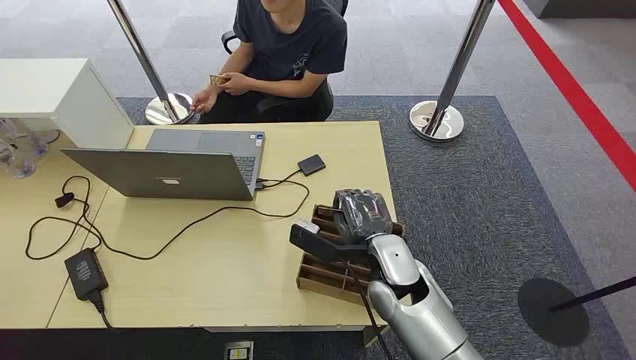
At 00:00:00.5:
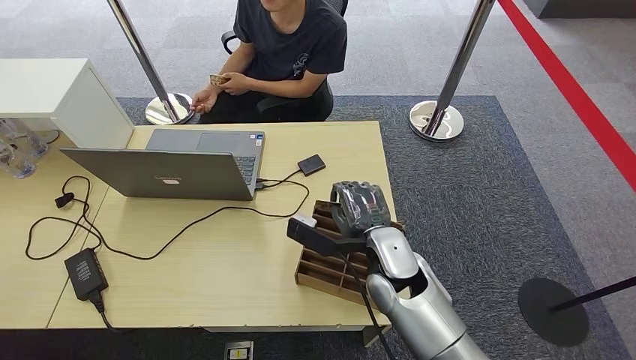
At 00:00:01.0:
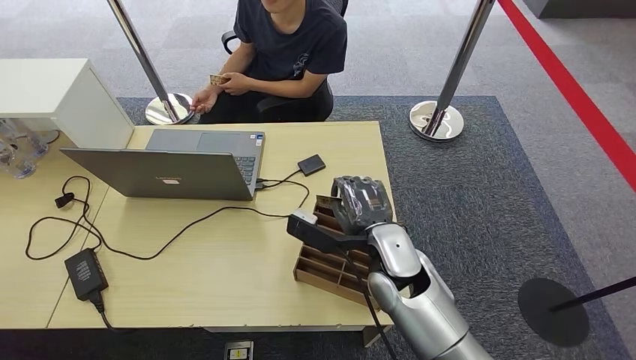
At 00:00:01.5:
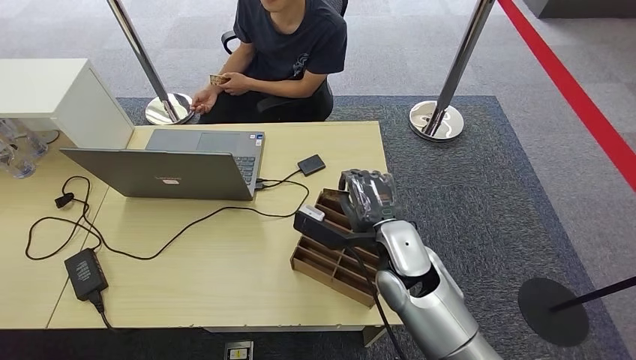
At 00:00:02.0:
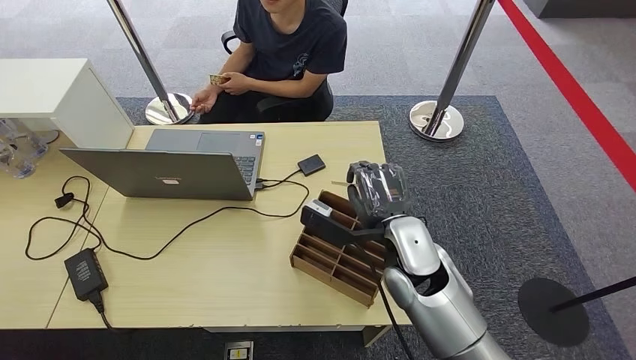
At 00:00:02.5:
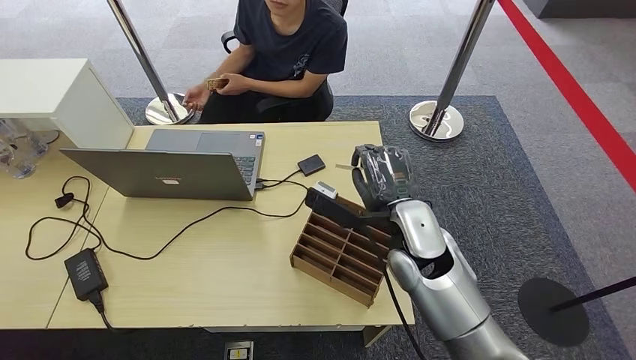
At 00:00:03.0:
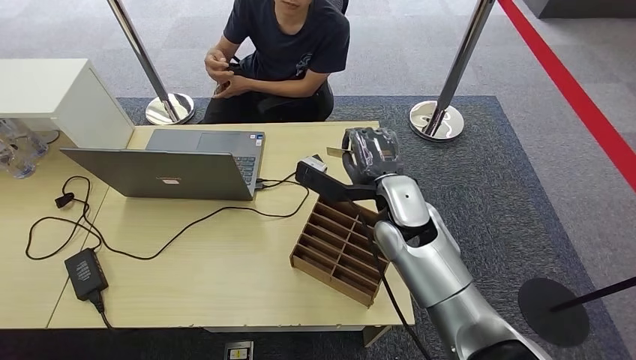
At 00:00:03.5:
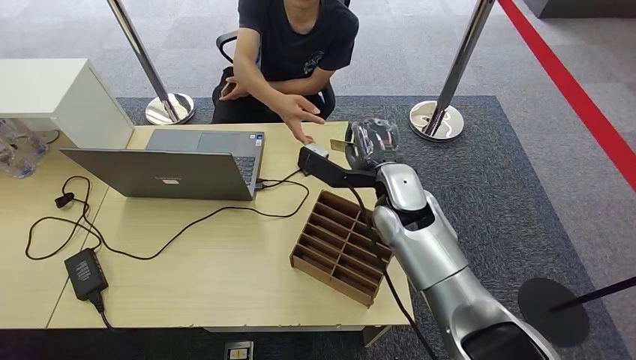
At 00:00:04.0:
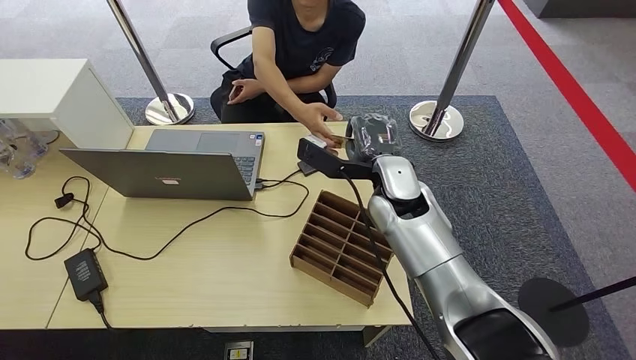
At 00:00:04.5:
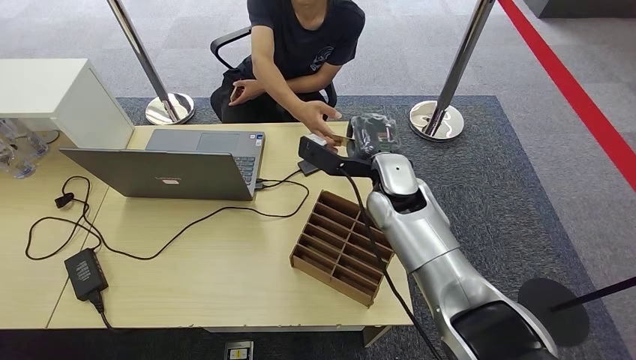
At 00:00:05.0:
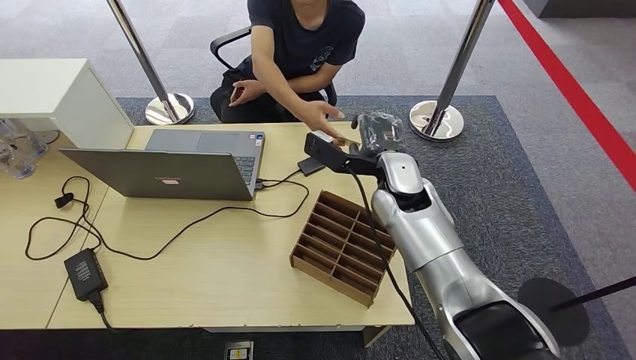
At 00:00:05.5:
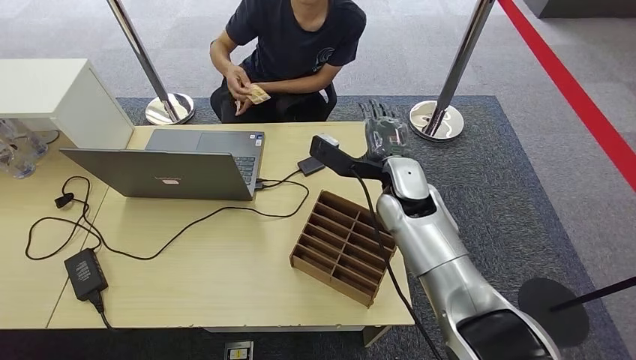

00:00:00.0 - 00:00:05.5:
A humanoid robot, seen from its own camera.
Step, 00:00:00.0 - 00:00:03.5: Pick up the key card from the card box.
Step, 00:00:04.0 - 00:00:05.5: Hand the key card to the target.
00:00:02.0 - 00:00:03.5: The right hand moves forward, about 10 cm.
00:00:03.5 - 00:00:05.5: There are only small adjustments of the hands.
